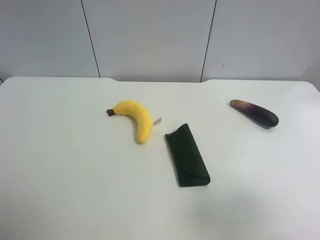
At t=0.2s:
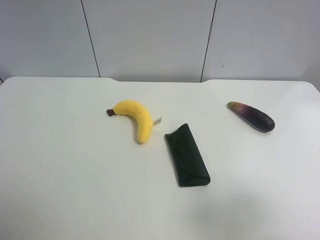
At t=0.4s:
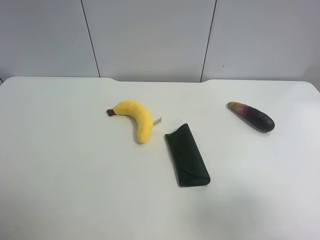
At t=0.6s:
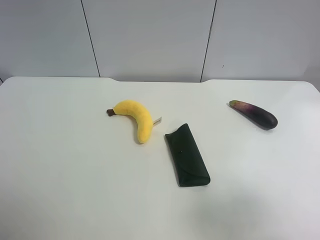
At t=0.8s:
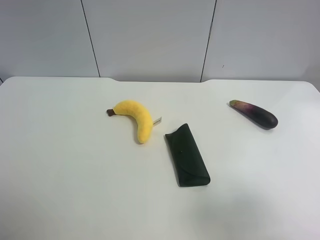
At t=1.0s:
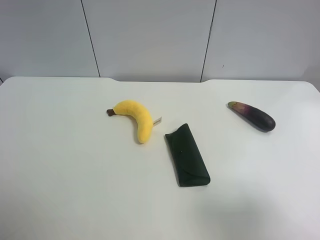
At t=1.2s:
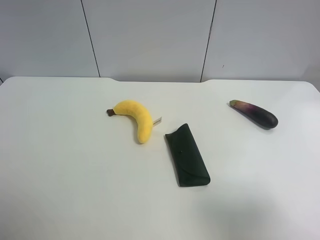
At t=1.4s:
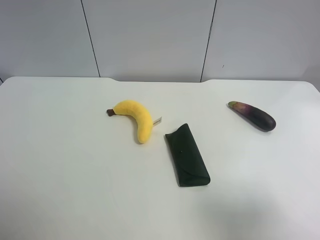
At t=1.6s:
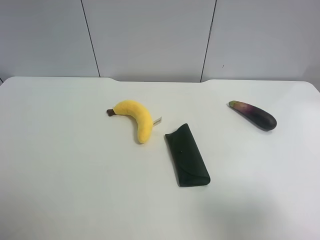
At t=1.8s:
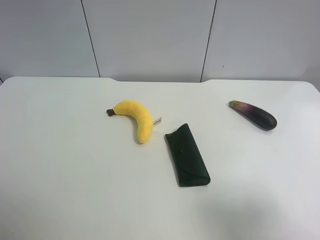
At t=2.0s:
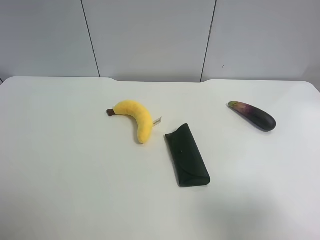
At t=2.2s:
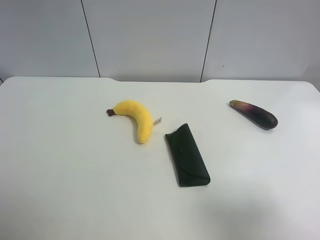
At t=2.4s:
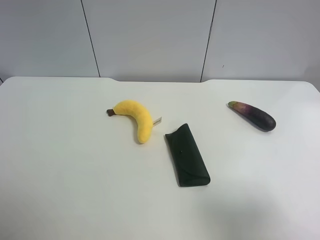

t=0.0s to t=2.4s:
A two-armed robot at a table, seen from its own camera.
Task of the whole recording: use the left gripper to pick up the item and transfer it from the left gripper to the right gripper.
t=1.2s to t=2.4s: Both grippers stay about where they are.
